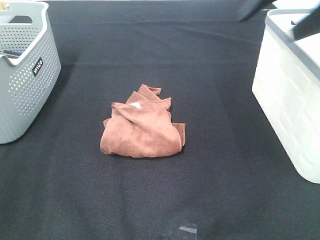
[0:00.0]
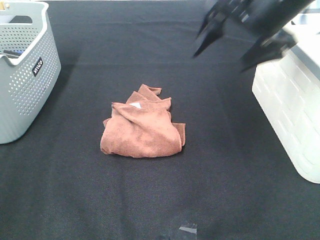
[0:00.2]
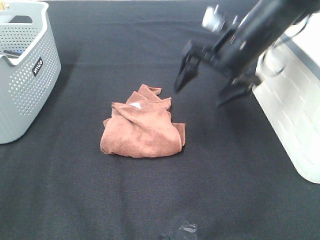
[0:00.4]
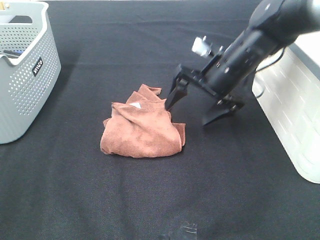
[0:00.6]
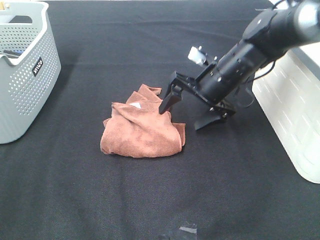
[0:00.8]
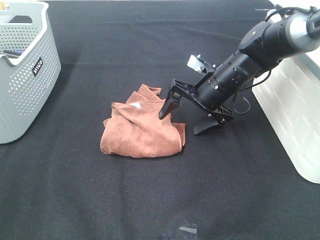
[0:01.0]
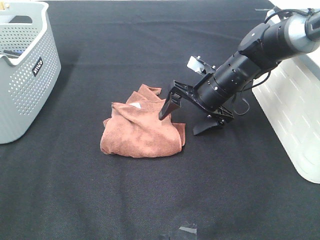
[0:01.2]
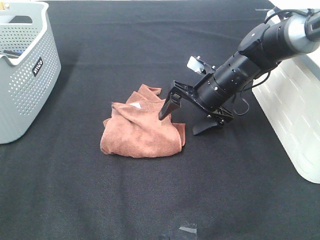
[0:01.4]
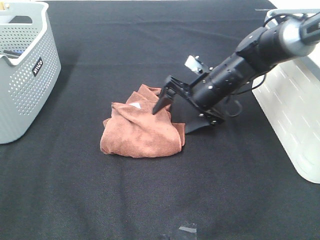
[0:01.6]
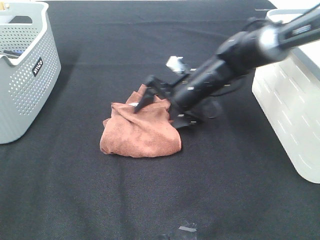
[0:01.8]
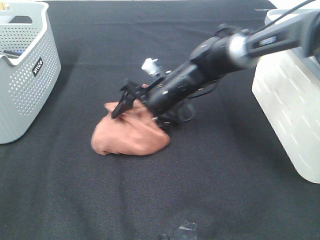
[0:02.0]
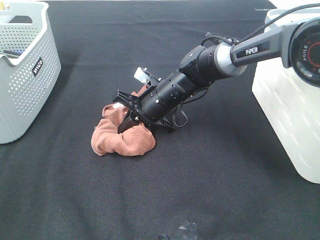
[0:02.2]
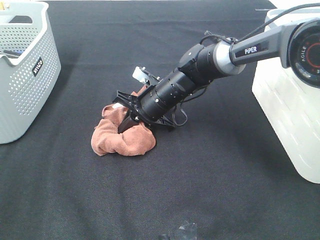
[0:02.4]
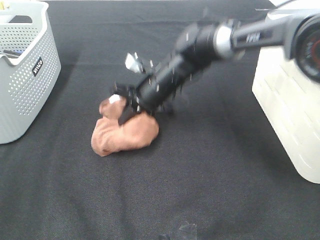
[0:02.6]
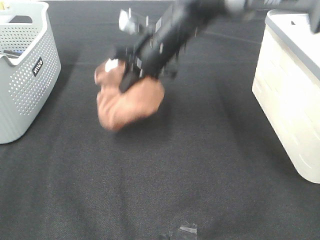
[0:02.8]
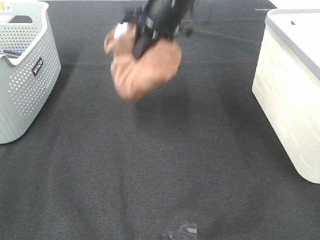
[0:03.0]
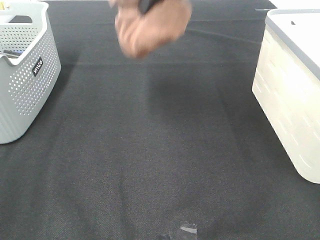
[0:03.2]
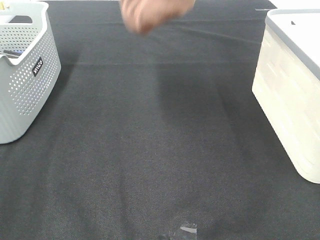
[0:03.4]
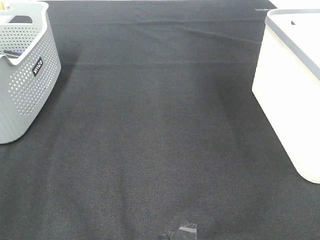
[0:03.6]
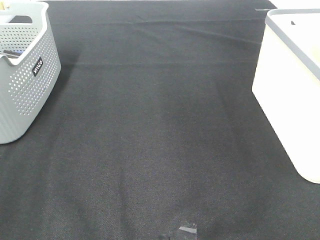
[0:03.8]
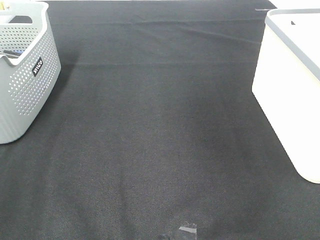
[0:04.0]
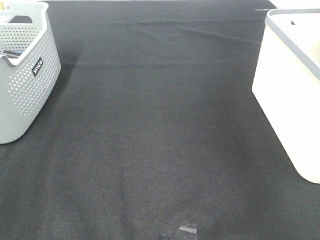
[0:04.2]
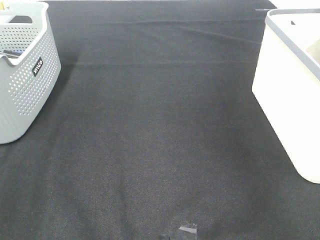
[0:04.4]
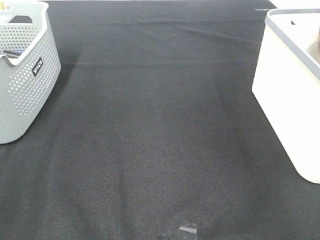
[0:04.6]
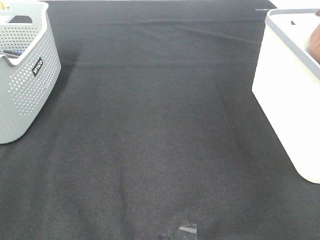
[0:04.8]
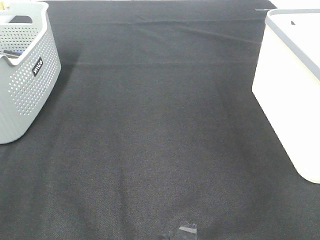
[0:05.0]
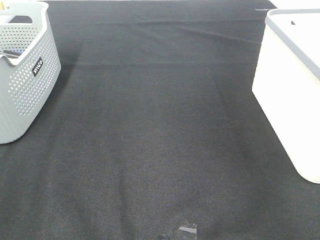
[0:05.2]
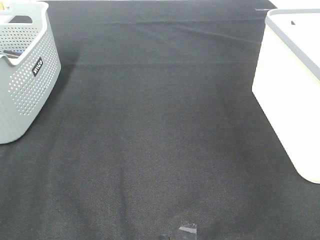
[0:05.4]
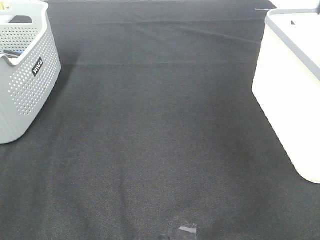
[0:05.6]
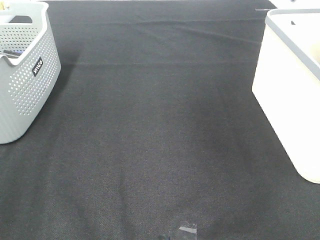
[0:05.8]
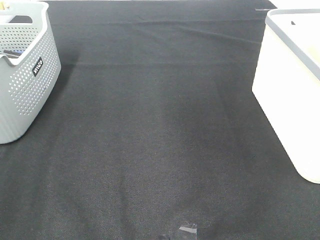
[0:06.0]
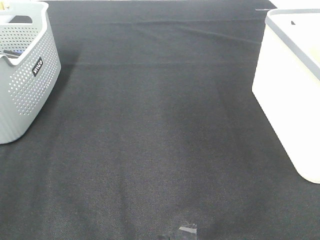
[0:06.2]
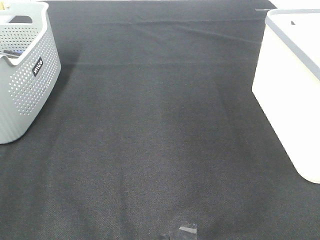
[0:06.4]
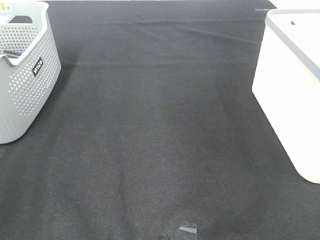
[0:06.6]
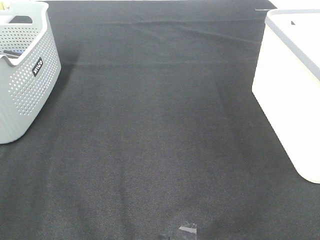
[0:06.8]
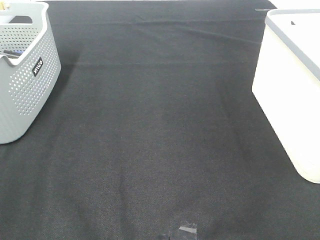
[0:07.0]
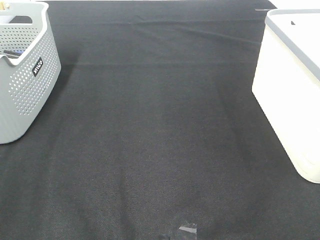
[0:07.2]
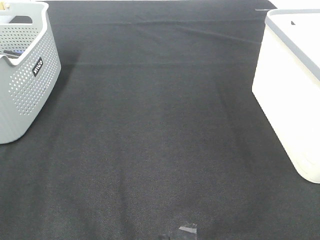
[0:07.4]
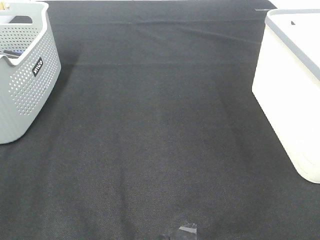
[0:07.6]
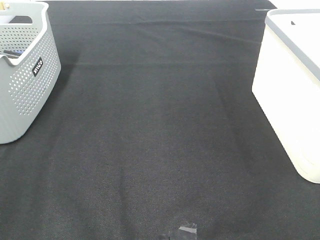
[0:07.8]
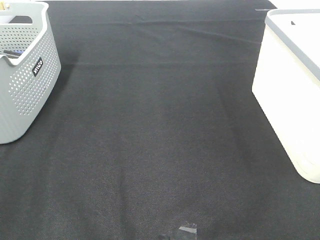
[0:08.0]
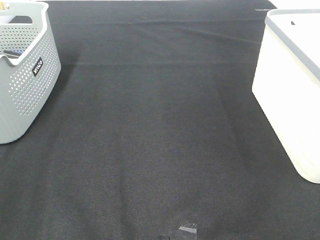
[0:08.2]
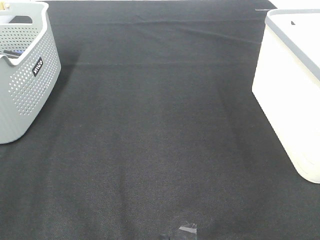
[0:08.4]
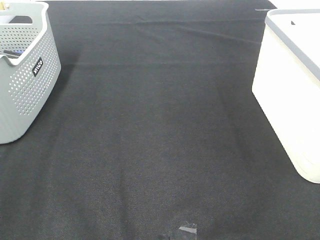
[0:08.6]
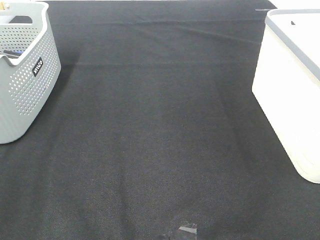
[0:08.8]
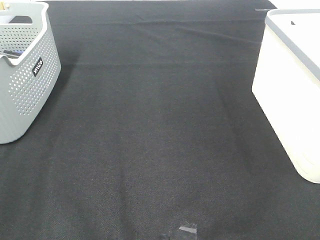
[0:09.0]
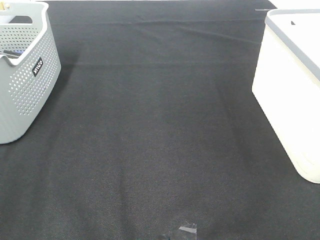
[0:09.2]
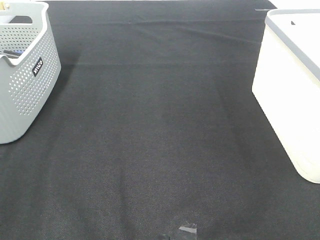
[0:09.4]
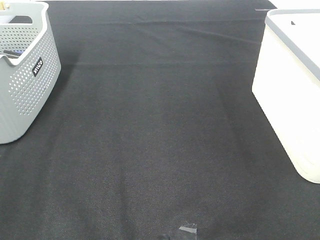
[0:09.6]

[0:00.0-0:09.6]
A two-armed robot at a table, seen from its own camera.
Step, 0:00.0 to 0:02.4: Right hand: grab the folded brown towel.
Step, 0:02.6 to 0:05.0: Right hand: place the brown towel in right basket.
0:00.0 to 0:01.6: The right gripper shifts roughly 25 cm downward.
0:01.6 to 0:03.2: The right gripper travels upward by about 25 cm, and closes up.
0:03.2 to 0:04.8: The right gripper shifts some 35 cm to the right, and opens its fingers.
0:04.8 to 0:06.4: The right gripper moves backward, to the left and upward, roughly 20 cm.

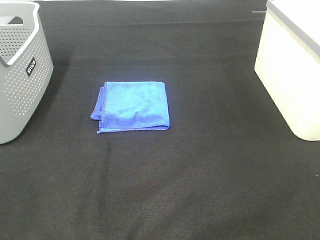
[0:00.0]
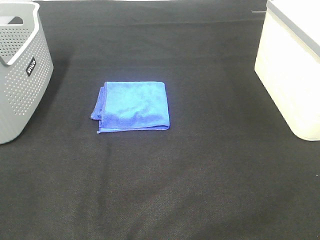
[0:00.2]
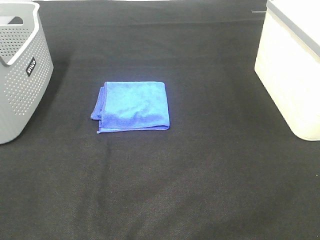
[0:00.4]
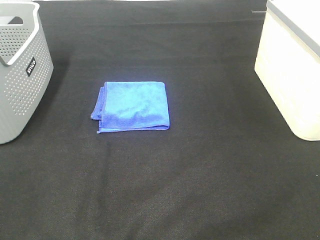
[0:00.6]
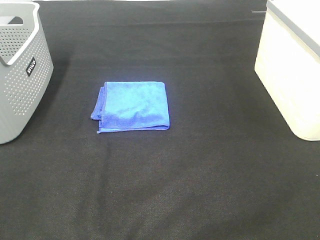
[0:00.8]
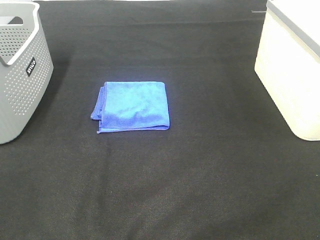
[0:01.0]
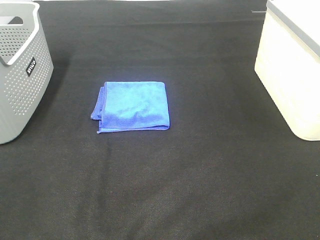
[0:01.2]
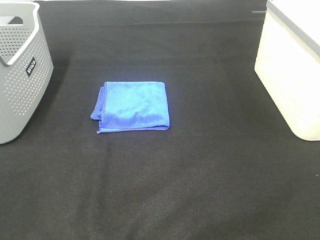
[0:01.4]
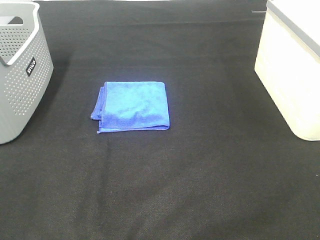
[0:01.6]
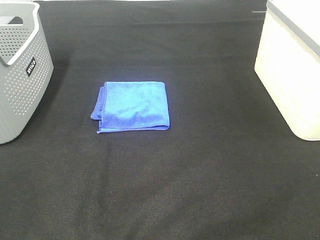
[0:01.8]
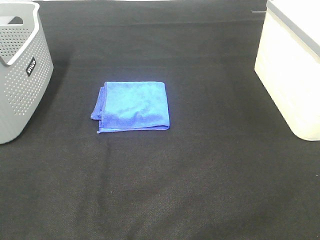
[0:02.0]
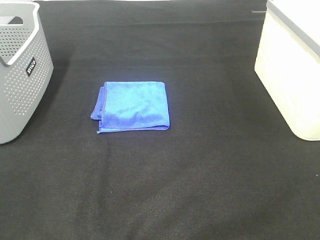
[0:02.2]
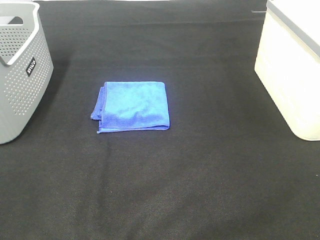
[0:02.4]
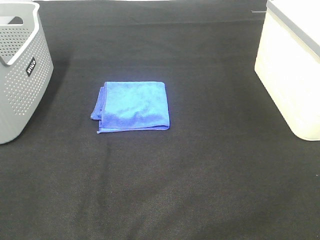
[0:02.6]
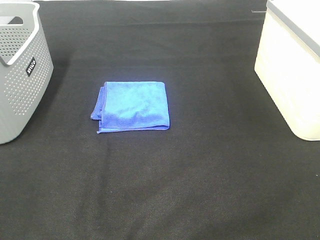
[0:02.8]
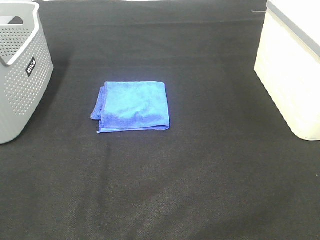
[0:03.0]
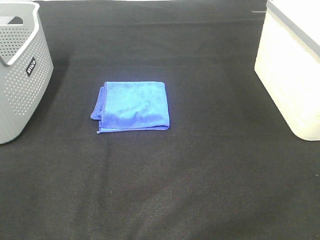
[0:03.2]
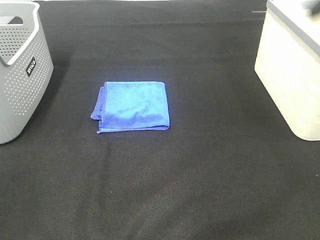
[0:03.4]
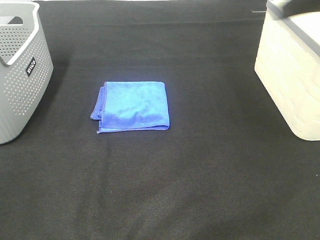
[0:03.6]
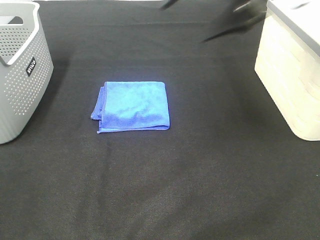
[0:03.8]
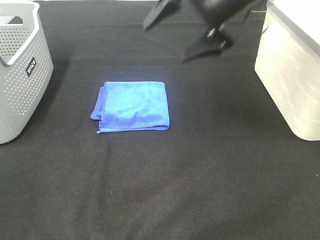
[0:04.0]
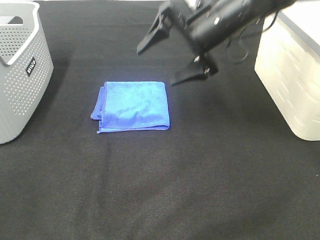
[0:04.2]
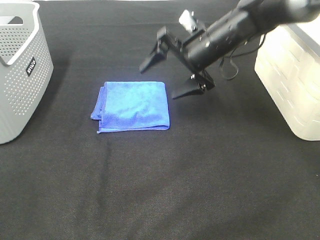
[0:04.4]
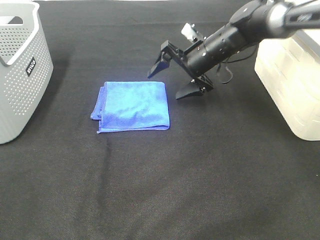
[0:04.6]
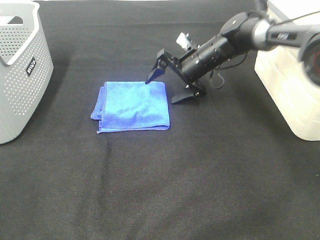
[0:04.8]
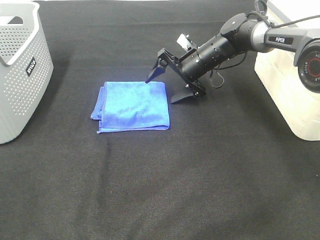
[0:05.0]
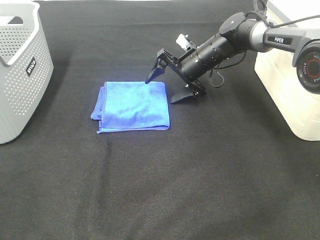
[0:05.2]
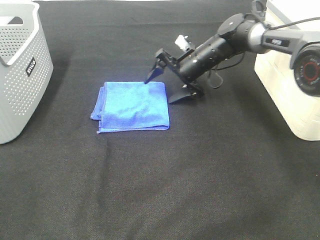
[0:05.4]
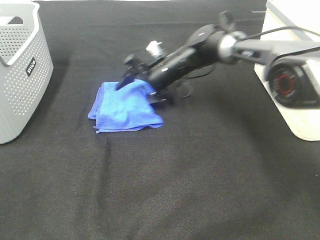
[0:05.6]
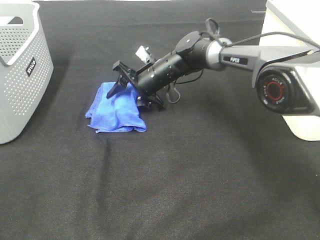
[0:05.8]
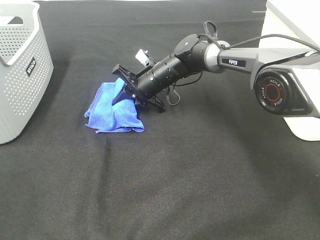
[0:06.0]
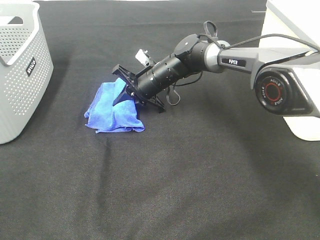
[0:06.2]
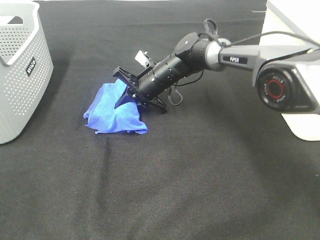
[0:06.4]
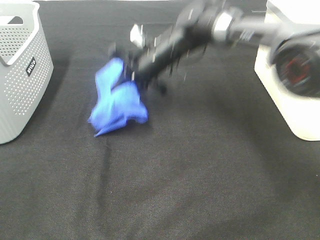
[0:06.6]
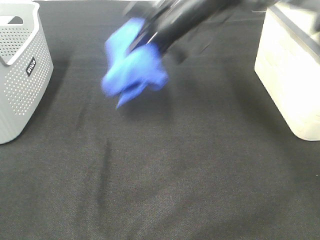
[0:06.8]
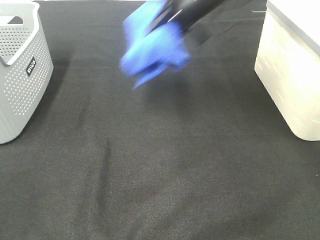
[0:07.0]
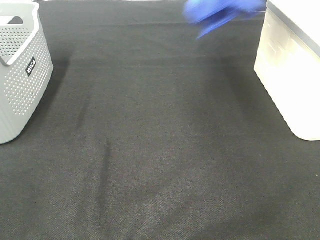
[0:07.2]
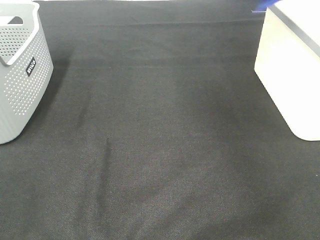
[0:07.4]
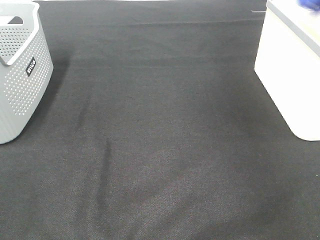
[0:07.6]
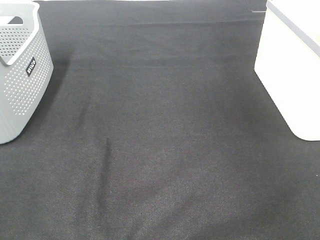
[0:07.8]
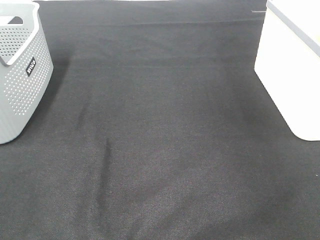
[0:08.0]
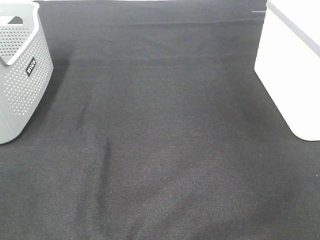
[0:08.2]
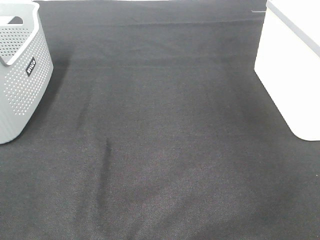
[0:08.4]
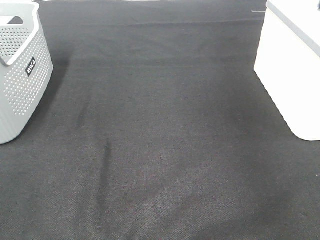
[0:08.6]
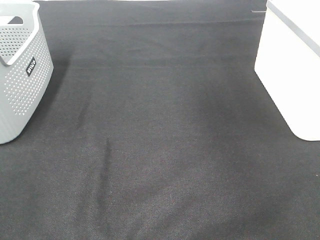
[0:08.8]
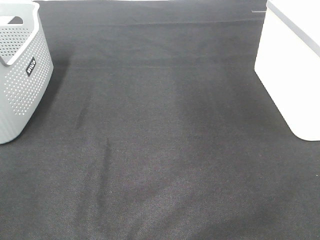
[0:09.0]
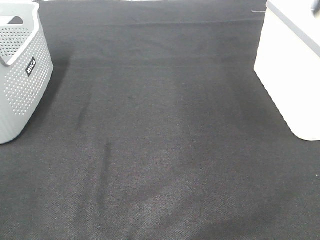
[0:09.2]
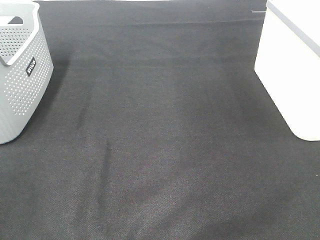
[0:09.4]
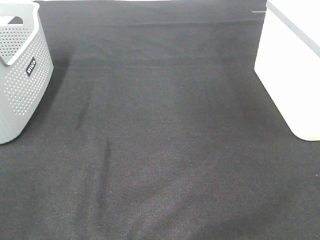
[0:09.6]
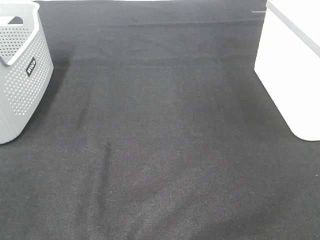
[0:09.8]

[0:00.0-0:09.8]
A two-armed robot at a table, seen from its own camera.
Step, 0:00.0 to 0:06.0: Right hand: grab the folded blue towel.
Step, 0:06.2 to 0:08.4: Right hand: place the blue towel in right basket.
0:00.0 to 0:01.4: Both grippers stay put.
0:02.8 to 0:04.2: The right gripper travels forward and to the left by about 40 cm.
0:04.2 to 0:05.6: The right gripper heads downward, to the left and forward, covering about 20 cm.
0:05.6 to 0:07.0: The right gripper moves upward and to the right, about 25 cm, and closes its fingers.
0:07.0 to 0:08.4: The right gripper shifts approximately 30 cm to the right, and opens its fingers.

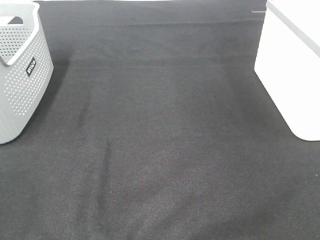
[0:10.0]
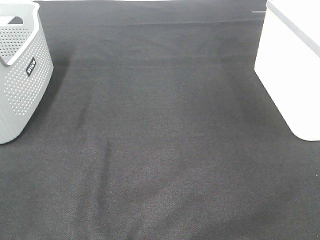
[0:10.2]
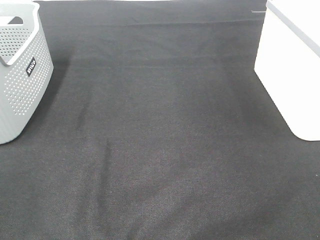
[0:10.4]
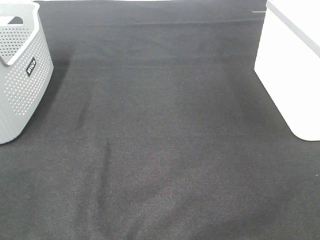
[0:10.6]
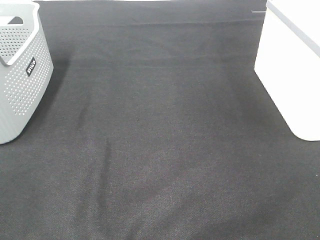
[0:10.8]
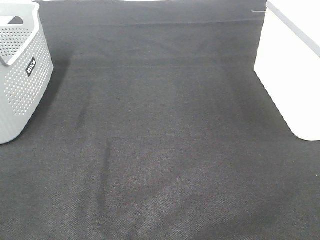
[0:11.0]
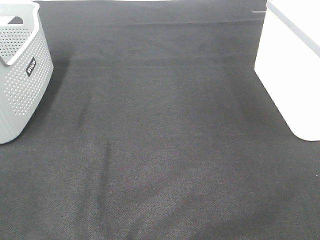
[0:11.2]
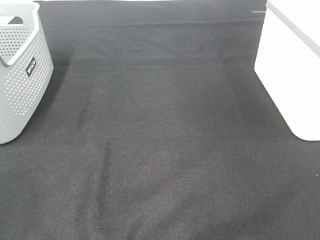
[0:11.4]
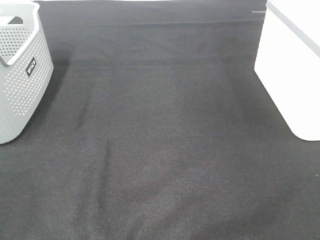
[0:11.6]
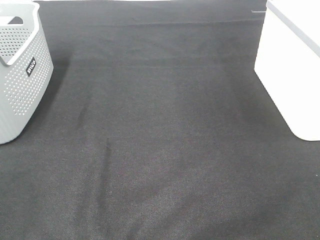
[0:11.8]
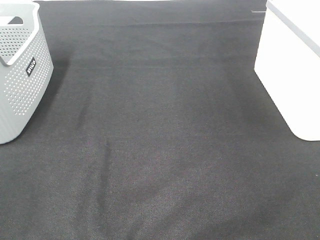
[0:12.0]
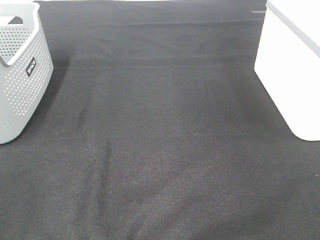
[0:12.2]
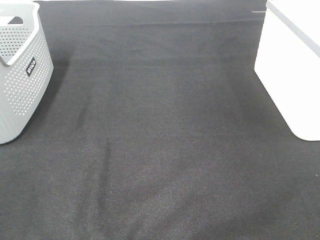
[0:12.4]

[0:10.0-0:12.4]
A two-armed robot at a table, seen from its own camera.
0:11.2 to 0:12.4: Both grippers stay put.
